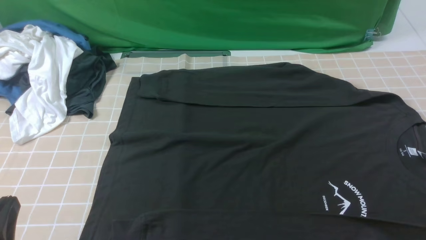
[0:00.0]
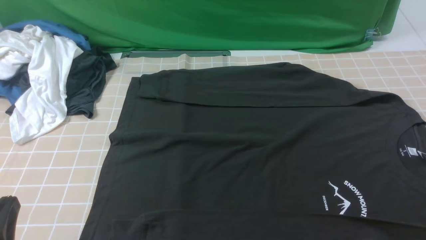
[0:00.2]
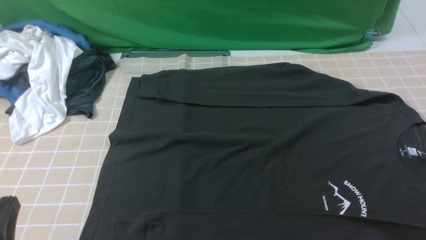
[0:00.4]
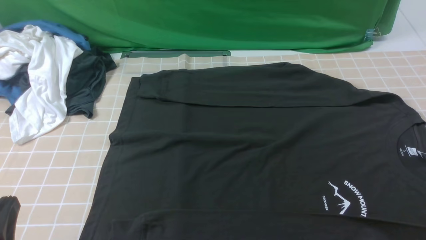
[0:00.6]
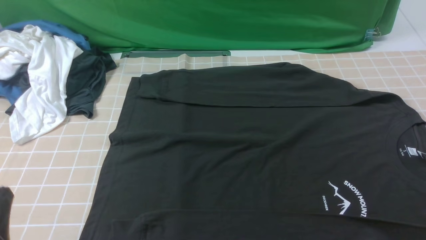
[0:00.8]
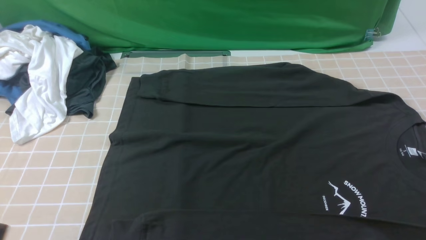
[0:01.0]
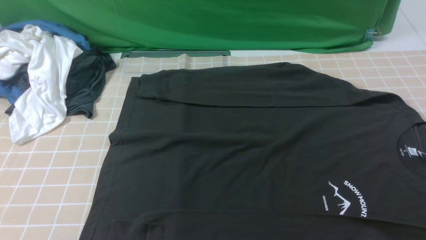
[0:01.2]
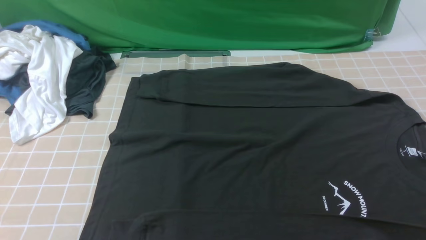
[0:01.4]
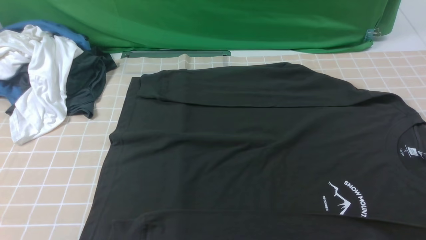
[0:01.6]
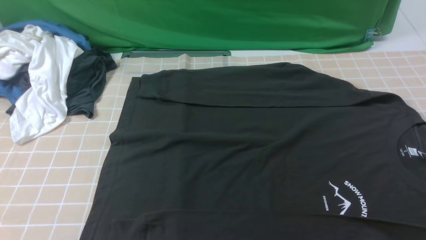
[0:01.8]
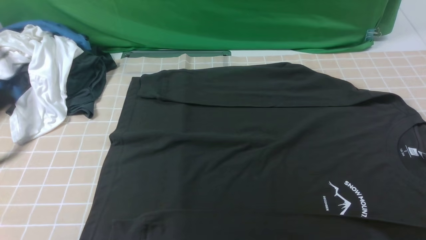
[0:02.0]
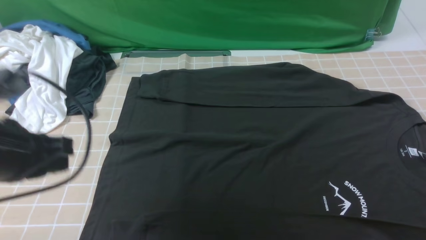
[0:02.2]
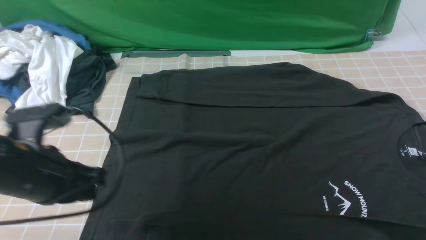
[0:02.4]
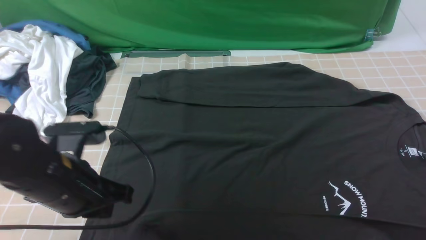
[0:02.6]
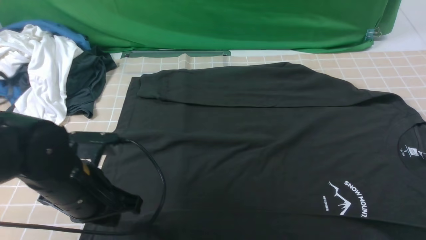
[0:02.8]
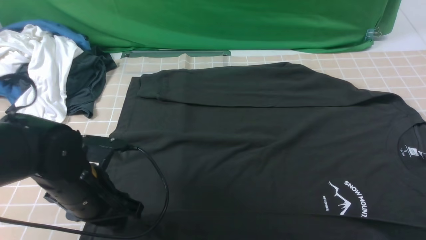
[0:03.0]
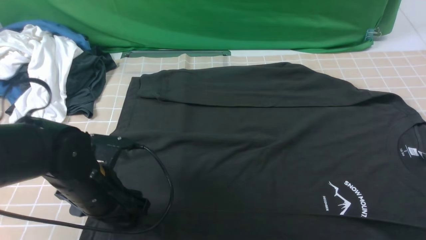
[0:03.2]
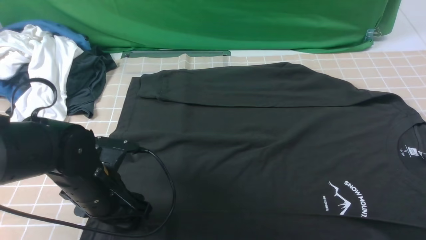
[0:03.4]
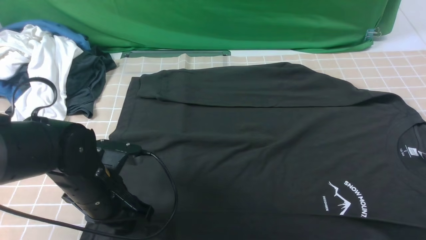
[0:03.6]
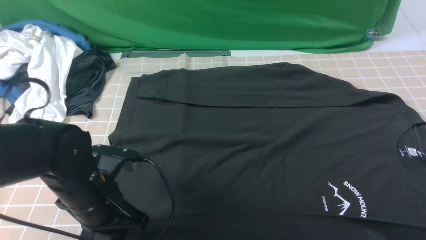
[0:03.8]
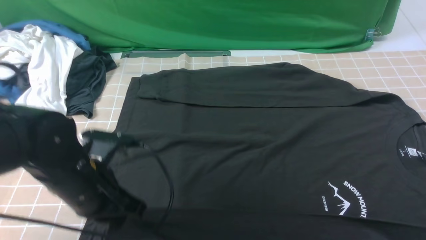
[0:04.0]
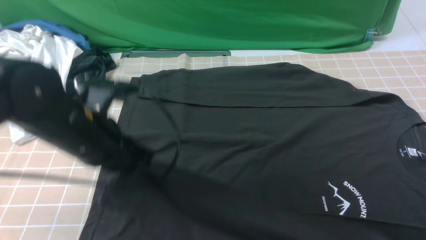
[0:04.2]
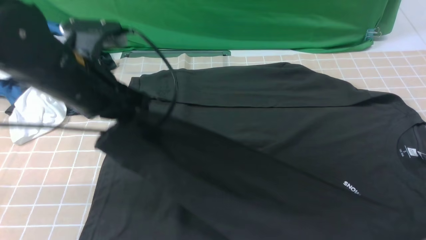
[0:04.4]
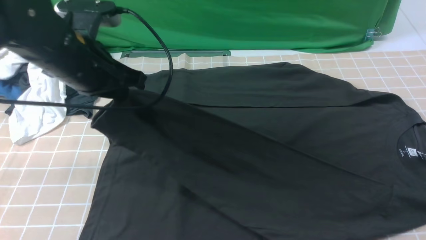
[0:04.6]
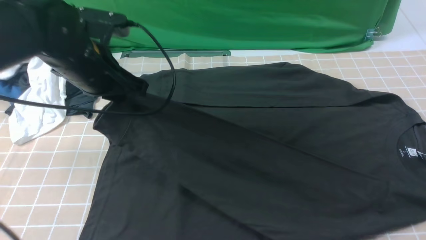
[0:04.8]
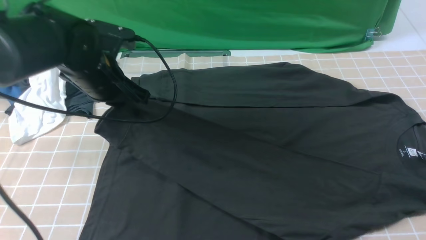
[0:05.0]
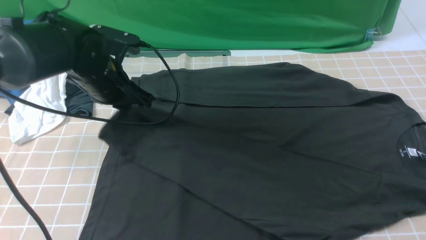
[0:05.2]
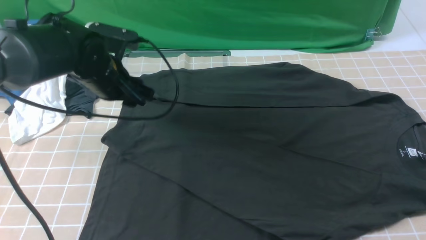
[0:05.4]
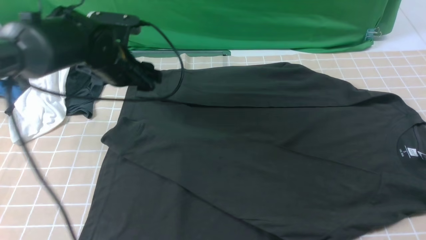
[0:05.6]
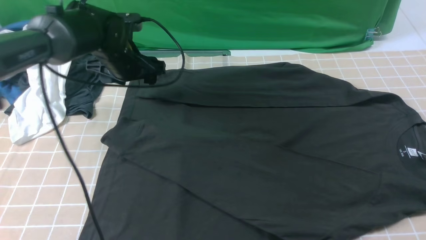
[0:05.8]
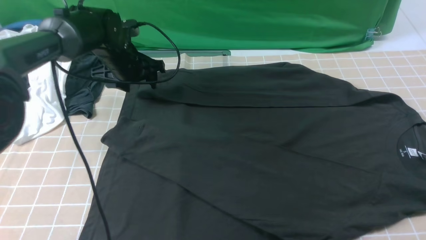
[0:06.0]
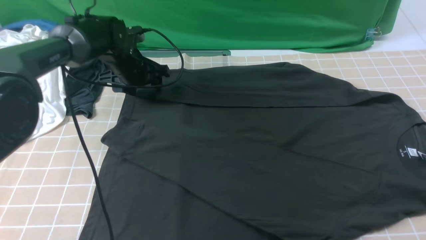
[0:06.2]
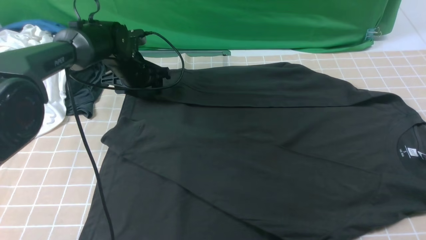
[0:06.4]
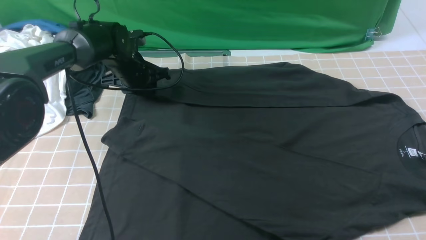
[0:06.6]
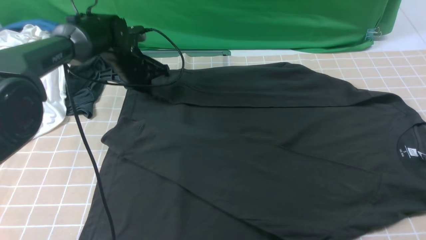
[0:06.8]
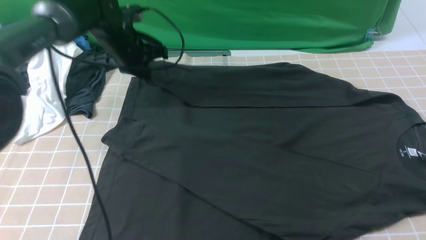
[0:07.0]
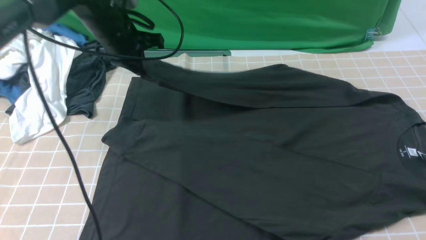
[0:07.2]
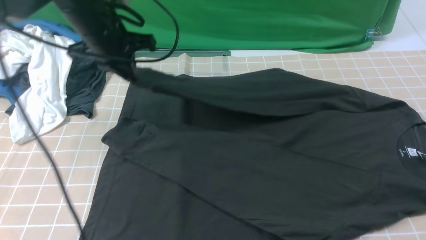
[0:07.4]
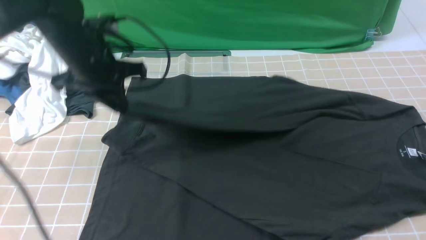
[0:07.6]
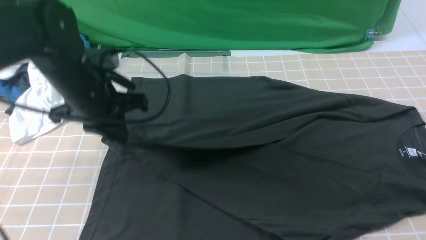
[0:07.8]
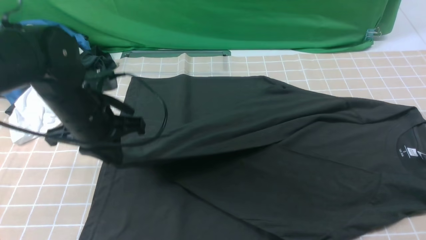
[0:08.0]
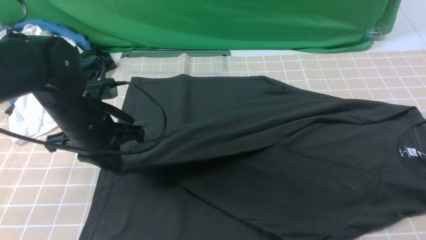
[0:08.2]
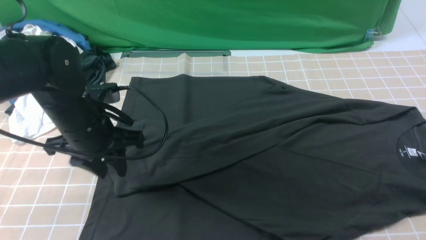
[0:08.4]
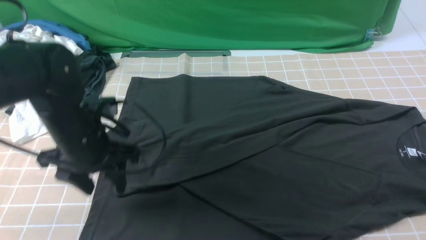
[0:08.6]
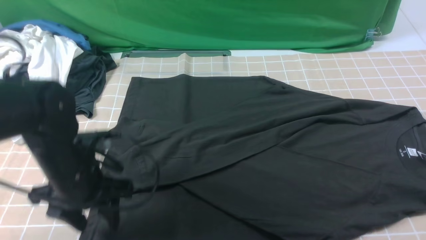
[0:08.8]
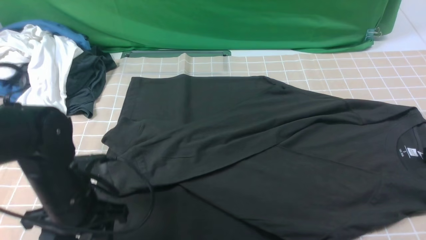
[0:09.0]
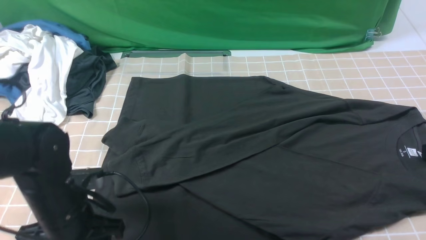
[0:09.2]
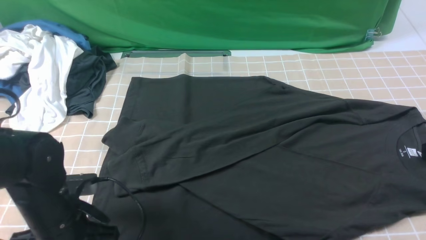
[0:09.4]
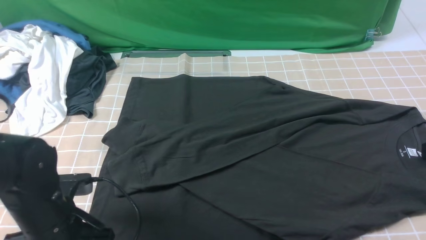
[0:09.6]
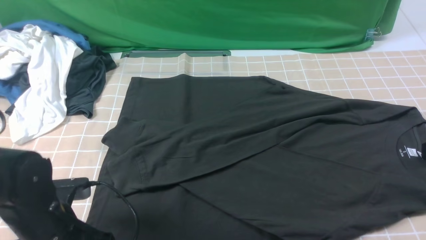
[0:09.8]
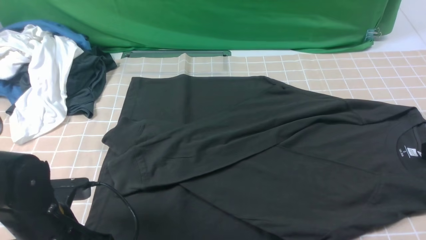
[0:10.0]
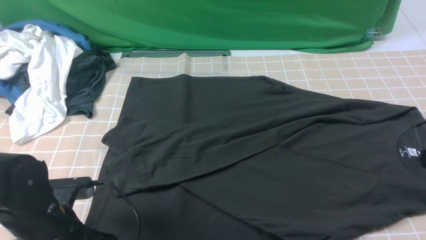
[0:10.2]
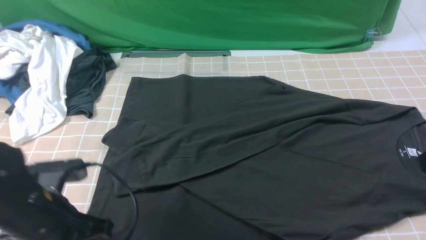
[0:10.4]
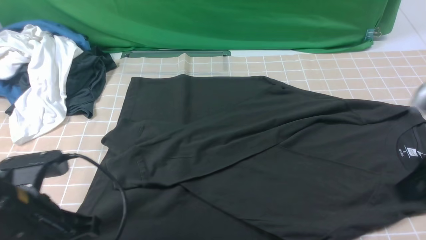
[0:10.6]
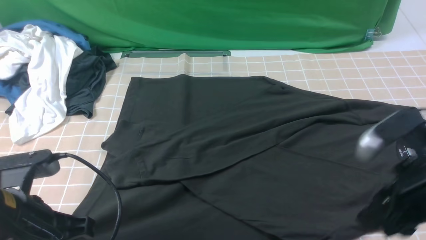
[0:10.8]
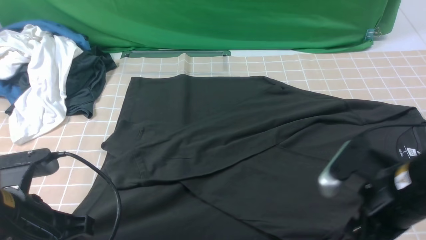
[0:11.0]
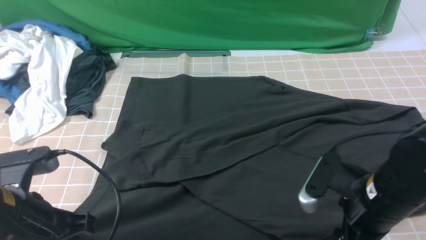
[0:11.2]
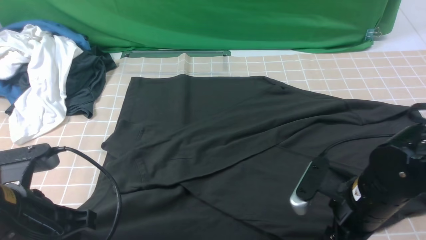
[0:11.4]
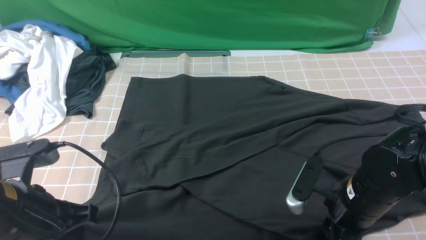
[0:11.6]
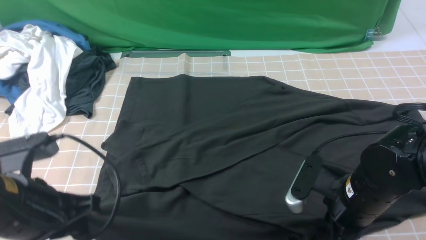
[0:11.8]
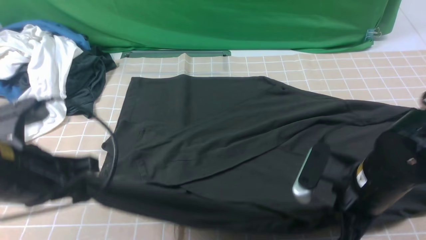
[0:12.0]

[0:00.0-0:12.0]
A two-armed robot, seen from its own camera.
Step, 0:00.0 to 0:03.8: use the left arm to clamp the cuff closest to it.
Step, 0:04.0 to 0:05.6: use the left arm to drag and place the cuff at the centered position on the left edge of the fabric.
Step, 0:05.8 to 0:06.8: use the left arm to clamp the cuff farthest from it.
Step, 0:07.0 to 0:08.2: use the left arm to drag and drop the cuff onto the cuff closest to the left arm.
Step, 0:08.4 to 0:11.6: use both arms simultaneously to clamp the lower edge of the clothing fabric.
0:00.0 to 0:01.6: The left gripper shifts about 15 cm upward.
0:01.6 to 0:03.0: The left gripper shifts roughly 25 cm forward, downward and to the right, and opens.
0:03.0 to 0:04.4: The left gripper is displaced upward and forward by some 15 cm, and closes its fingers.
0:04.4 to 0:06.0: The left gripper moves forward and downward, about 20 cm, and opens.
0:06.0 to 0:07.6: The left gripper heads backward and upward, covering roughly 15 cm, and closes.
0:07.6 to 0:09.0: The left gripper shifts some 20 cm backward and downward, and opens up.
0:09.0 to 0:10.4: The left gripper goes roughly 5 cm backward, and closes up.
0:10.4 to 0:12.0: The right gripper travels downward and to the left by approximately 15 cm, and opens, then closes once more, while the left gripper is displaced upward by about 10 cm.

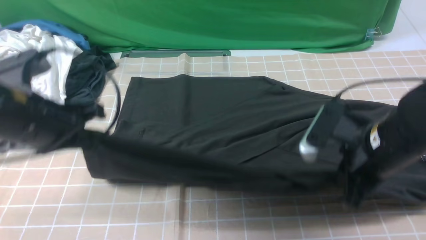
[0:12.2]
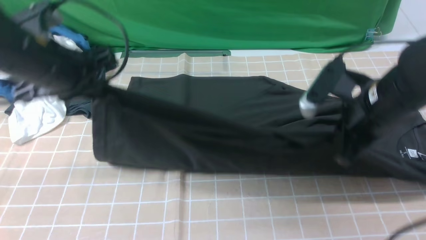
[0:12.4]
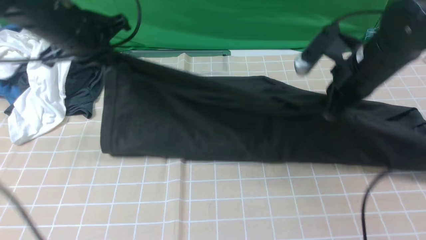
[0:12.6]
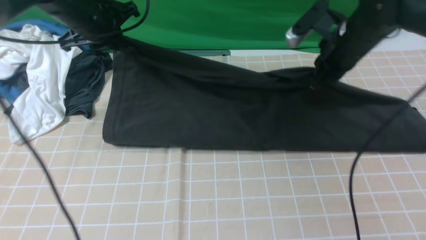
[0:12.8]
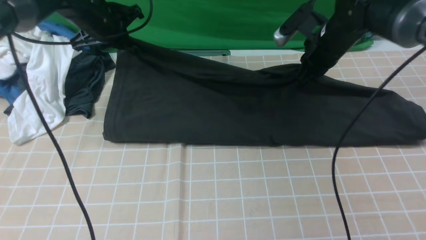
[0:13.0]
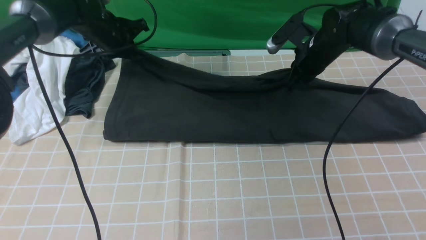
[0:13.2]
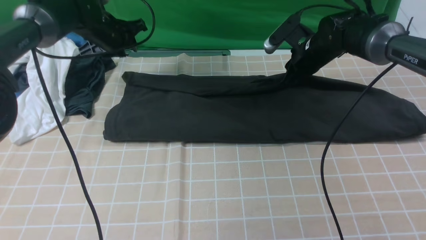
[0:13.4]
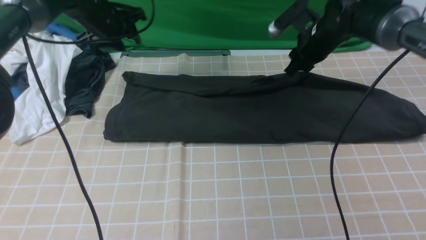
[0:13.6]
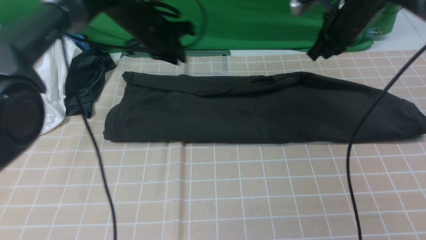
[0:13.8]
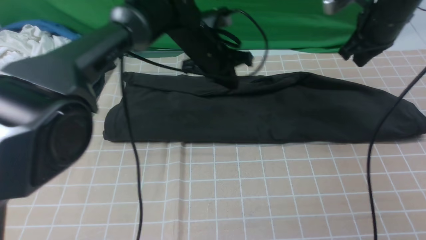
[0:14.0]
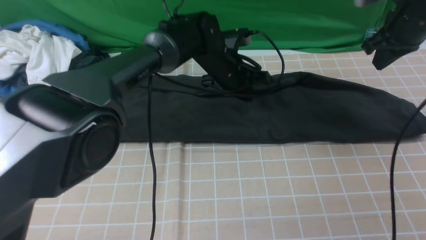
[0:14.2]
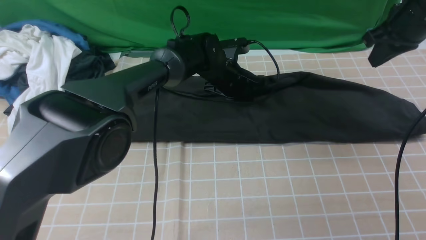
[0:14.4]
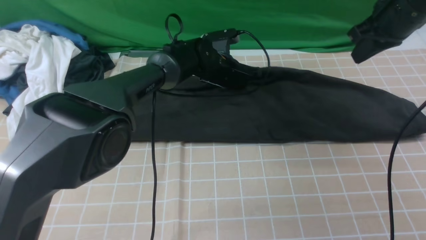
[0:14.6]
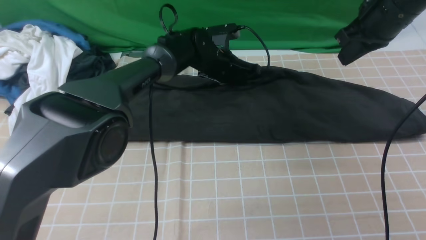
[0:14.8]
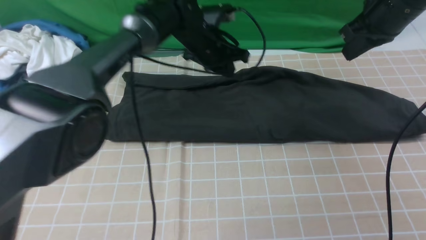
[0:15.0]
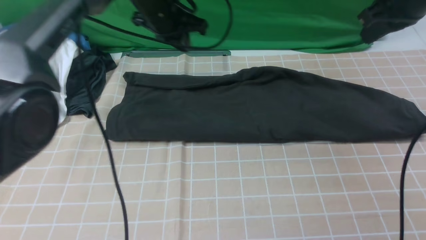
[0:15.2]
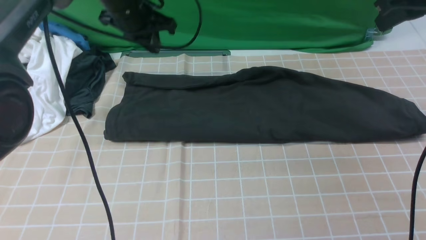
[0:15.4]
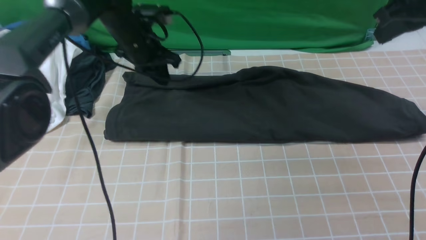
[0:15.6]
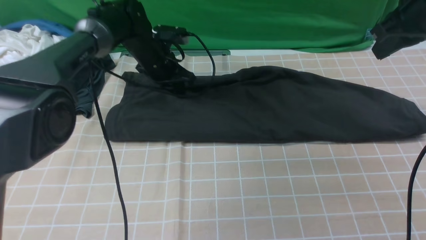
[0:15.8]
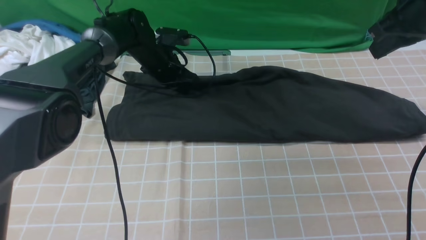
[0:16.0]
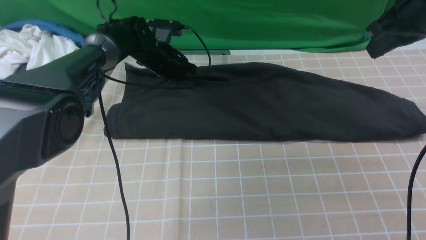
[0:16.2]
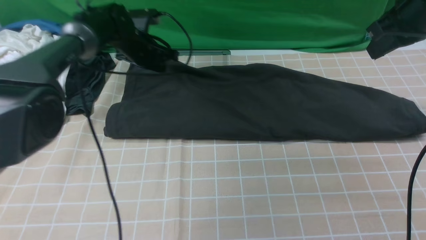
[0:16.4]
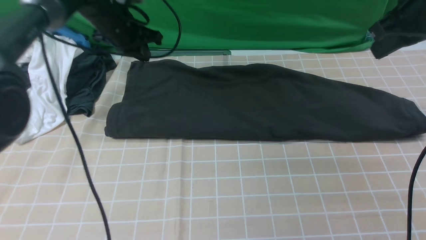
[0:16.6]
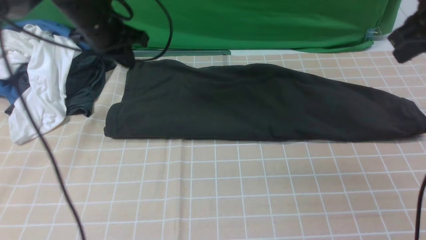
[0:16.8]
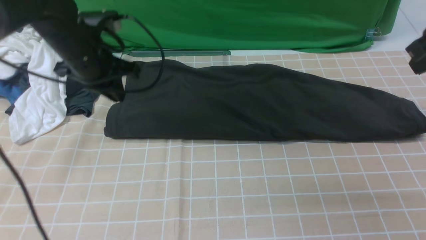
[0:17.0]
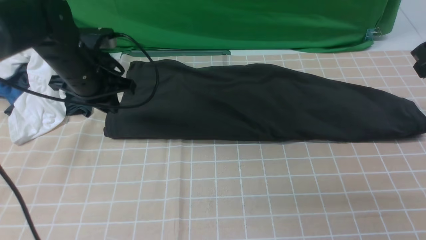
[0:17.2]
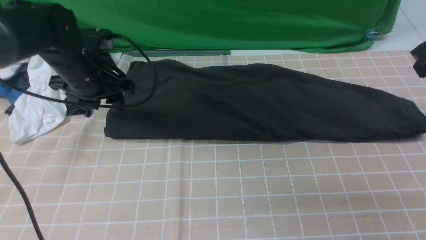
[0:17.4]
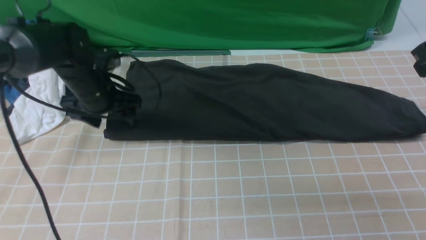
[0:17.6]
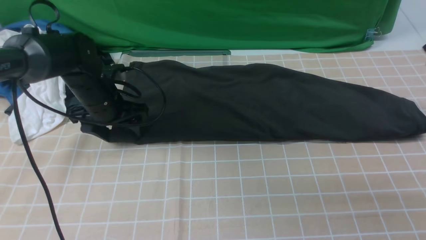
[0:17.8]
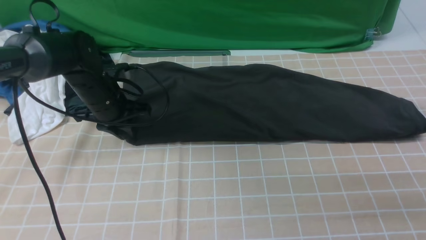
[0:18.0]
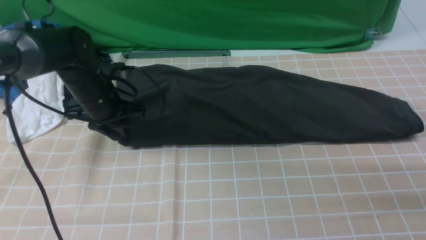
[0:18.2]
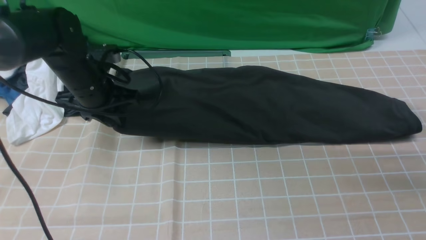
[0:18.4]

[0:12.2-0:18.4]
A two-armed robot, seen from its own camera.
Step, 0:12.2 to 0:13.6: use both arms to drag the lower edge of the fabric forward and fold it over the upper edge.
0:12.2 to 0:13.8: The left gripper shifts roughly 25 cm forward and to the right; the right gripper shifts about 20 cm forward.
0:13.8 to 0:15.4: The right gripper goes about 15 cm upward and backward; the left gripper reaches about 10 cm to the right, then returns.
0:15.4 to 0:16.8: The left gripper travels to the left by roughly 5 cm, and travels downward and back again, roughly 10 cm each way.
0:16.8 to 0:18.4: The left gripper moves downward and backward, roughly 10 cm, and opens, then closes once more; the right gripper travels to the right and downward by about 15 cm, and opens up.
